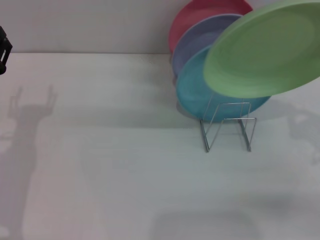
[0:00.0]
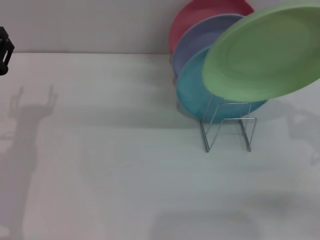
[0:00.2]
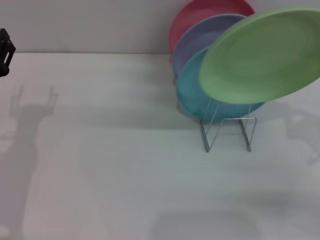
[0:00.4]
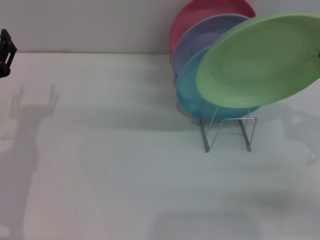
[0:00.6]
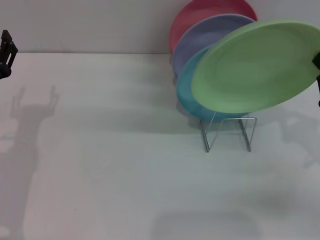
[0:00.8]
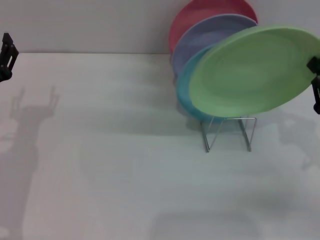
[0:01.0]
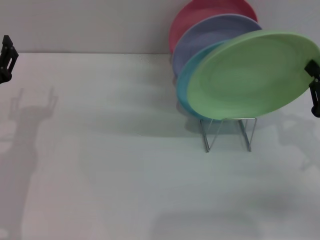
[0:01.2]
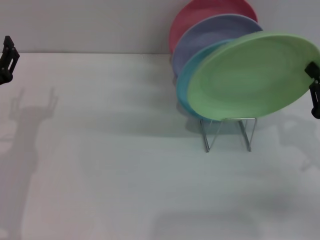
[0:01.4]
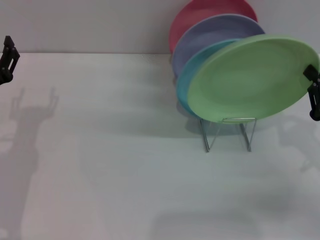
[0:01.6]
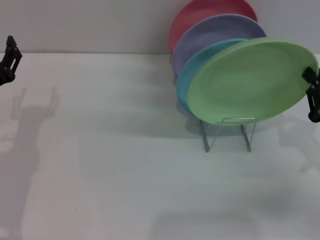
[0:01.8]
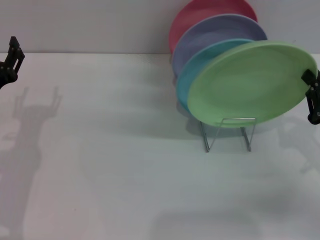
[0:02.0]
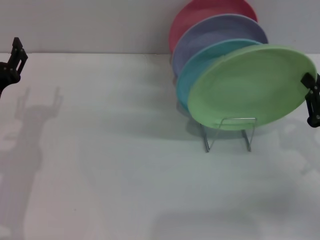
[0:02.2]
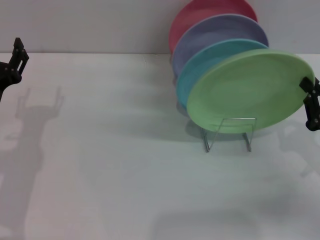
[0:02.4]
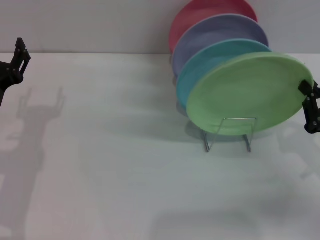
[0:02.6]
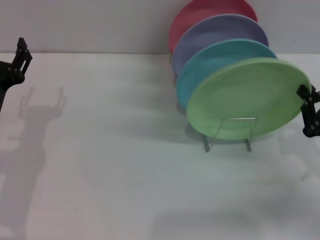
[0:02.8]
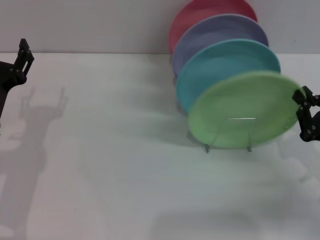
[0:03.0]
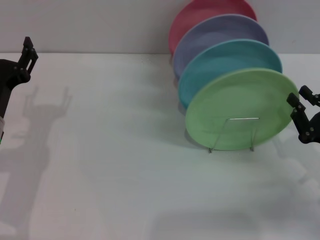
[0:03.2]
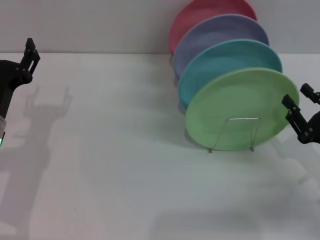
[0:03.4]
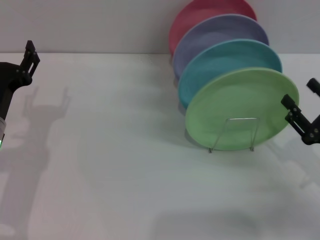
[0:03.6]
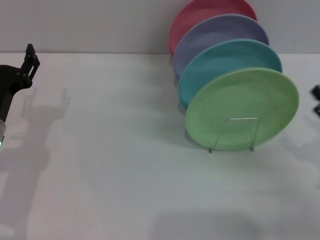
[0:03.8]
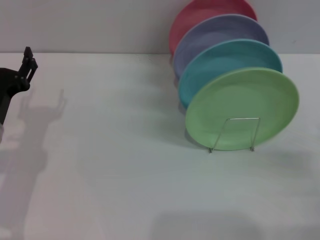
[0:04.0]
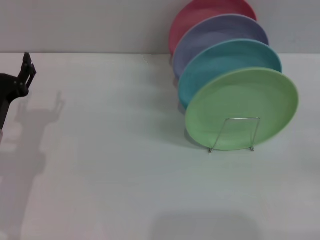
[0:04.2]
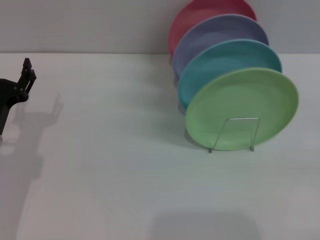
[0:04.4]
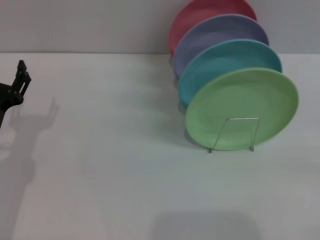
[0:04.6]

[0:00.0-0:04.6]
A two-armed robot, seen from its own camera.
Task of the whole recording: Grip the plate with one hand, pass it to the other, then set it on the shelf.
Step, 0.0 to 3.6 s: Place the plate on the shelf with the right gripper.
0.0 to 1.6 s: The grippers move only a little.
1.6 to 3.0 s: There are only small adjustments of the grippers.
3.0 to 4.6 s: The right gripper travels to the right and backward by about 10 cm, and opens its fingers.

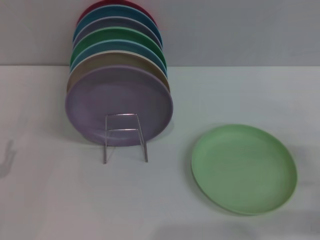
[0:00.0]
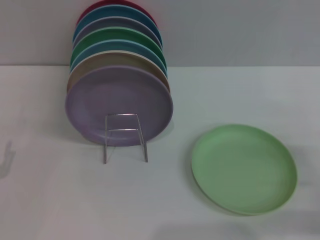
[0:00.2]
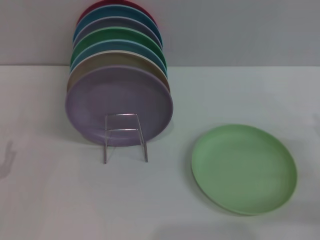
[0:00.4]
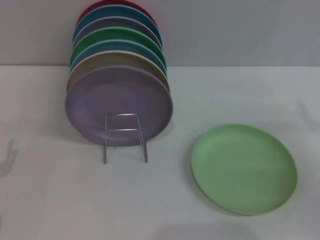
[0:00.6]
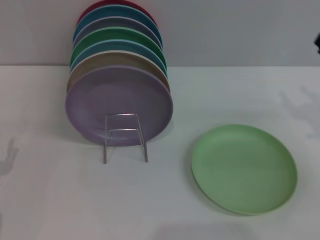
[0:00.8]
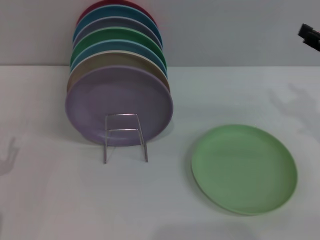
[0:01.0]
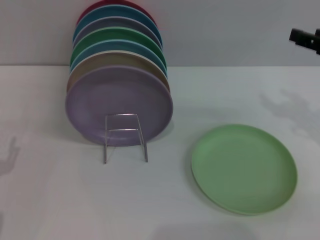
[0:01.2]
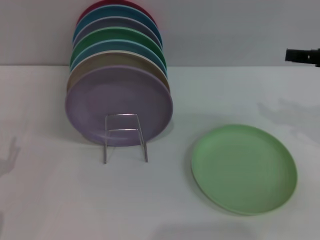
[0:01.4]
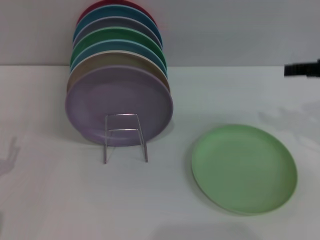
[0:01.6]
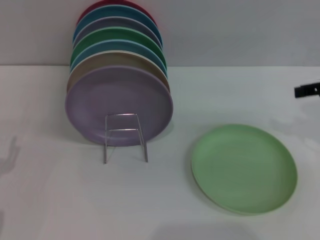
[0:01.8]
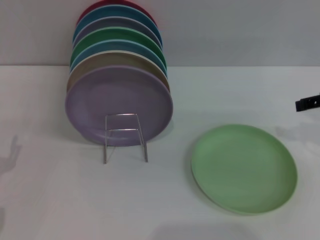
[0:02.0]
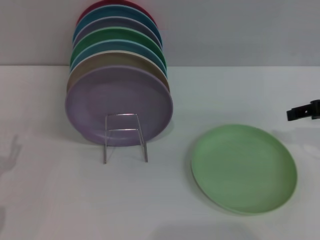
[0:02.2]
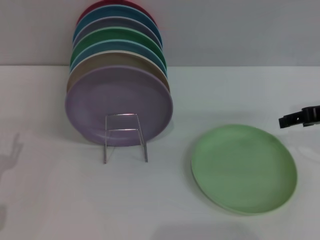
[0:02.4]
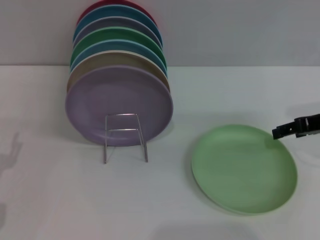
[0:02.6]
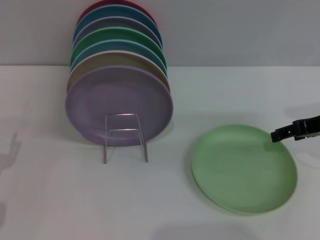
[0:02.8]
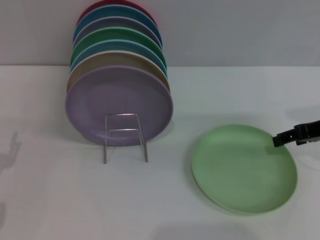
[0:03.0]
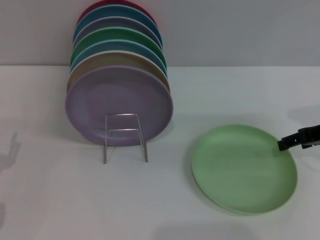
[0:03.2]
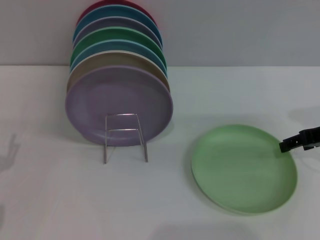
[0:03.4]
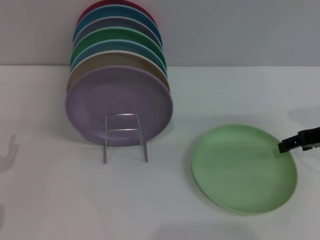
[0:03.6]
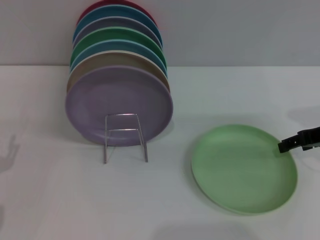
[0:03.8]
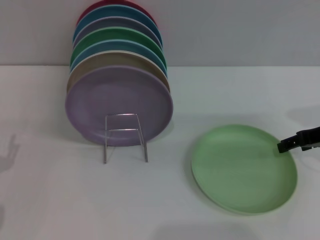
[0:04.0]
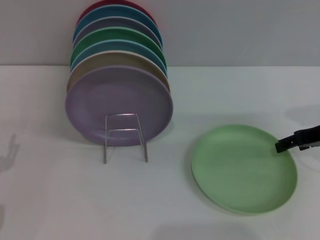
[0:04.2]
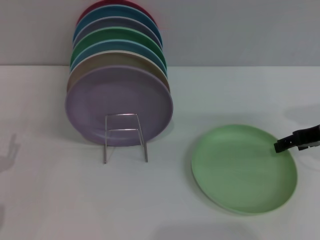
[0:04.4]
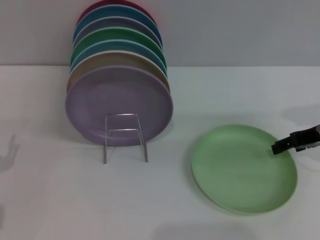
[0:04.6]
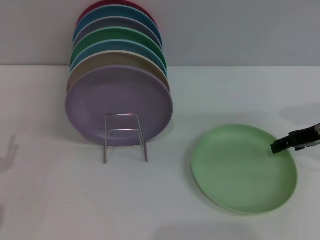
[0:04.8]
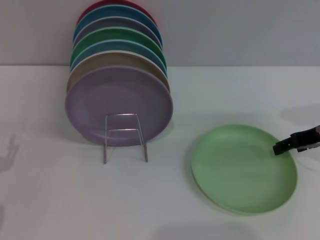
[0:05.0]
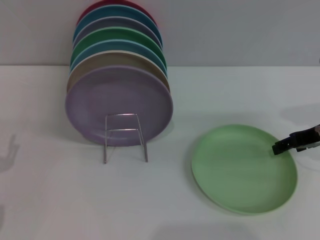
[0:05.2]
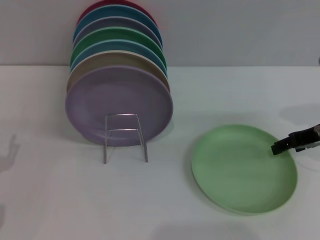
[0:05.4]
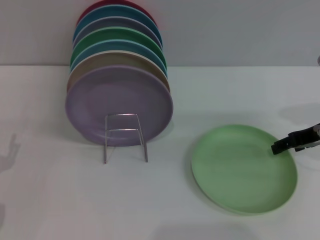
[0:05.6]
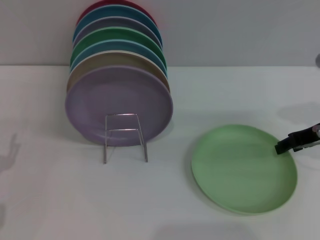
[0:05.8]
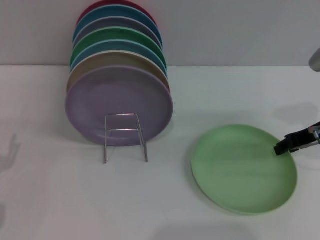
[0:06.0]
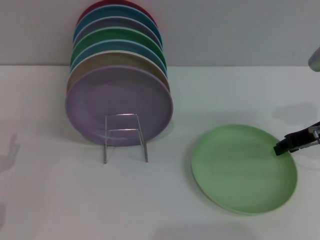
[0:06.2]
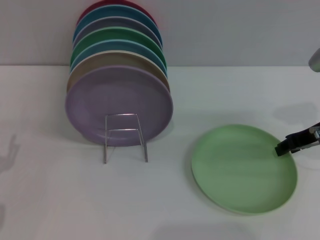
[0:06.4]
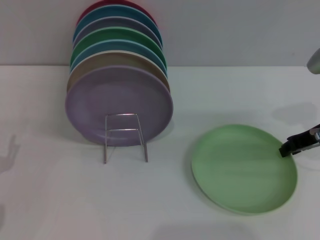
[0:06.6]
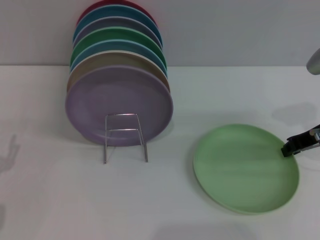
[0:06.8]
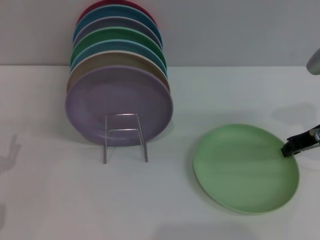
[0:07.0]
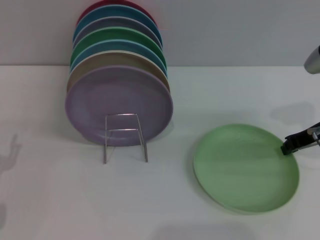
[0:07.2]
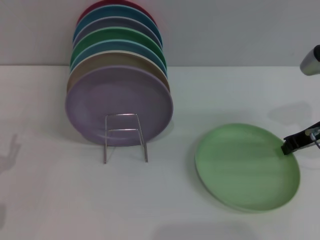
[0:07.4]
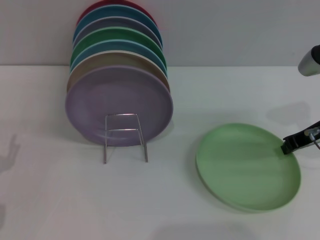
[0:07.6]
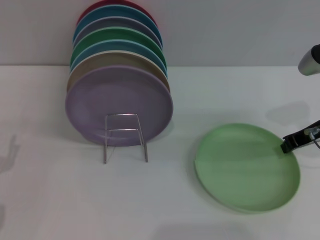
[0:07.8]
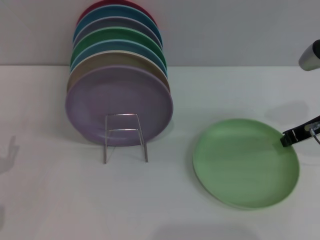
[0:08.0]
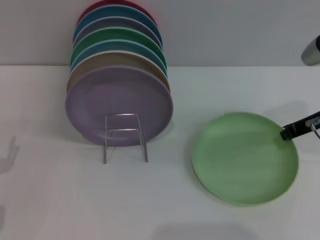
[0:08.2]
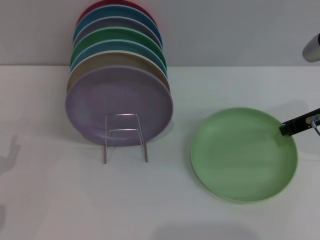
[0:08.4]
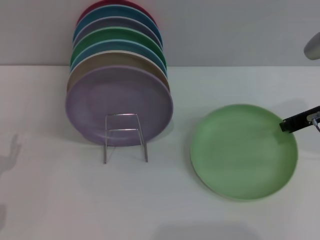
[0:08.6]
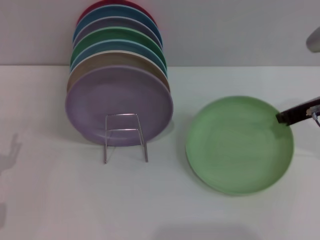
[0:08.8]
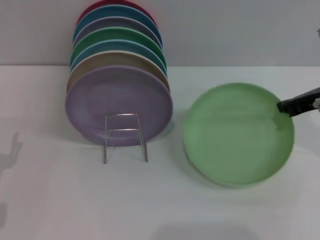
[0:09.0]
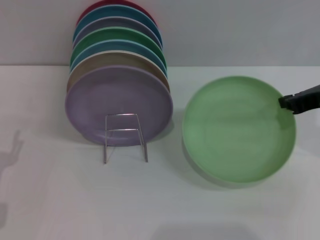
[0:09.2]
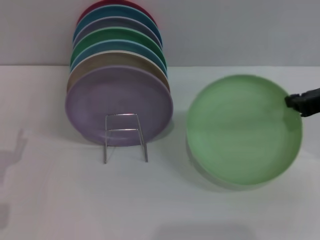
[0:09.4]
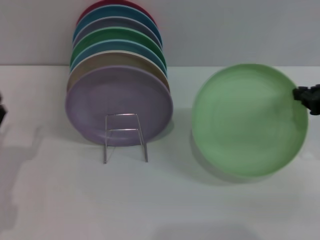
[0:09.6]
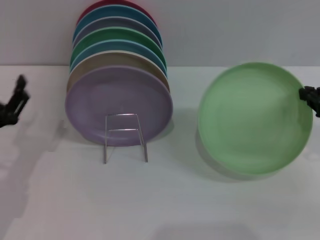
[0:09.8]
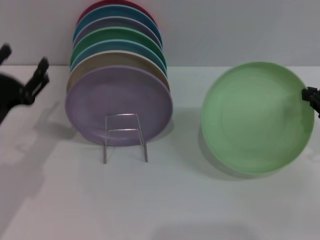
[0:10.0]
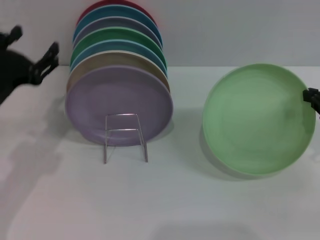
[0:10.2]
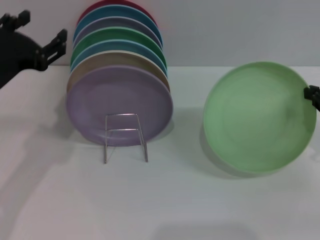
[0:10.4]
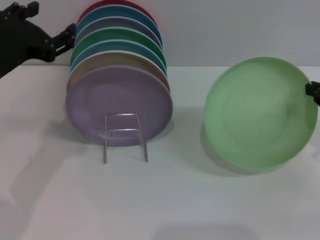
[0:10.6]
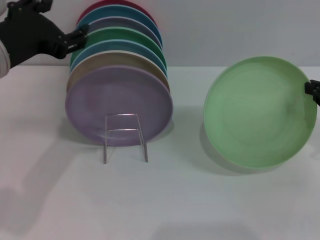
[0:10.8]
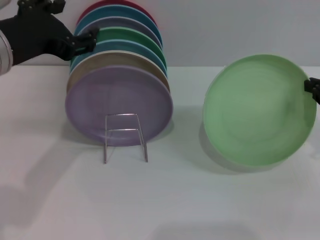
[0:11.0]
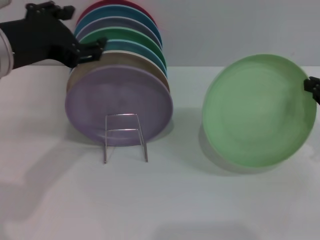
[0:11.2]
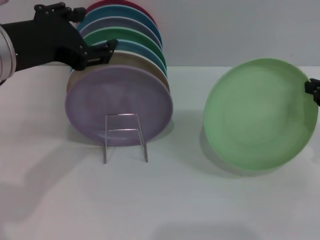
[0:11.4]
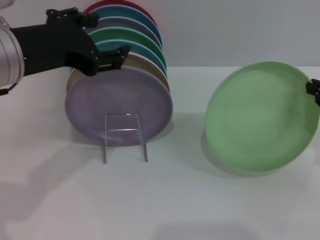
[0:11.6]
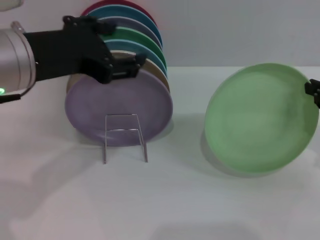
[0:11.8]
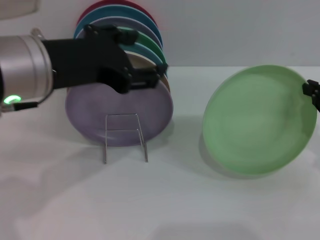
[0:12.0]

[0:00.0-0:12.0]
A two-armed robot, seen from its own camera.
Task of the whole recording: Grip the plate with one hand, pass it to the other, then set it on the shelf.
Step, 0.0 to 9.6 s: Pick up the plate with the right gripper.
0.0 to 1.6 s: The right gripper goes about 20 cm upward and forward.
1.6 to 3.0 s: The right gripper shifts approximately 10 cm downward.
6.0 to 7.6 s: The right gripper closes its fingers.
7.6 to 9.0 s: The right gripper shifts about 5 cm upward.
9.0 to 10.4 s: The left gripper heads upward, to the right and forward, covering about 20 cm. The right gripper heads to the right and backward, covering about 10 cm.
10.4 to 12.0 s: The left gripper is displaced upward and to the right by roughly 10 cm.

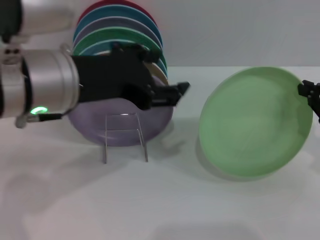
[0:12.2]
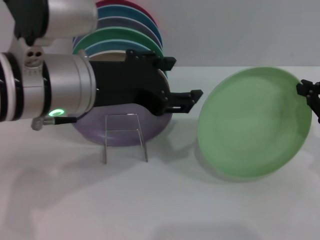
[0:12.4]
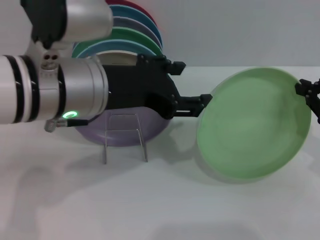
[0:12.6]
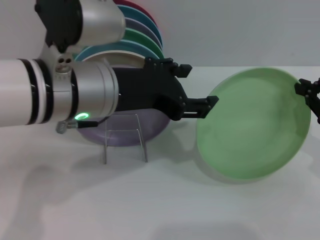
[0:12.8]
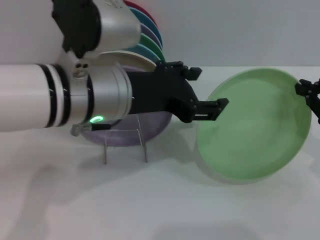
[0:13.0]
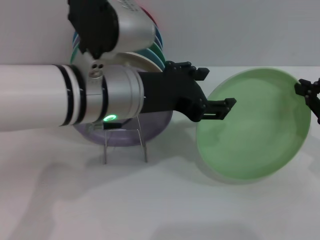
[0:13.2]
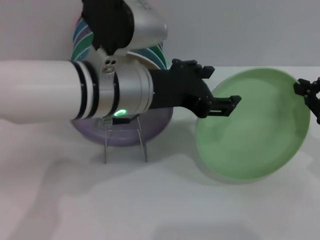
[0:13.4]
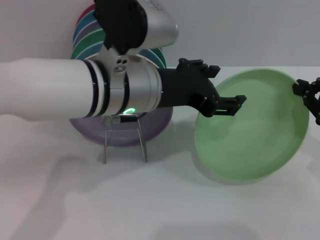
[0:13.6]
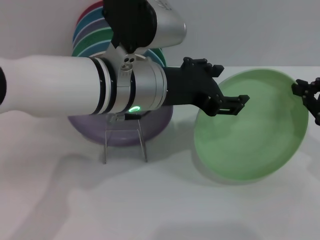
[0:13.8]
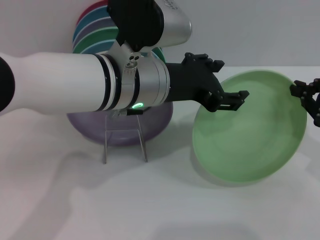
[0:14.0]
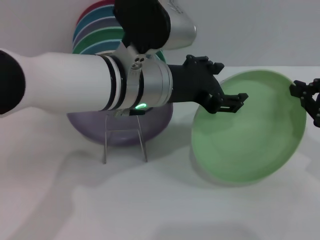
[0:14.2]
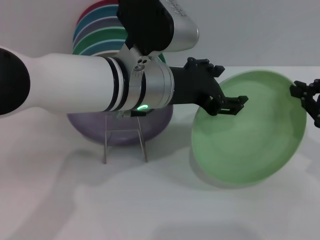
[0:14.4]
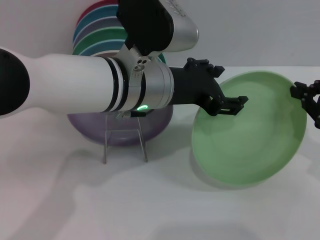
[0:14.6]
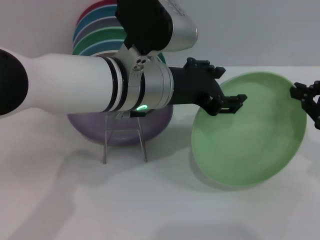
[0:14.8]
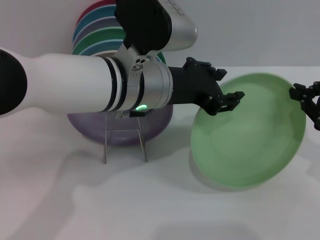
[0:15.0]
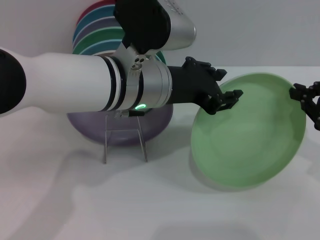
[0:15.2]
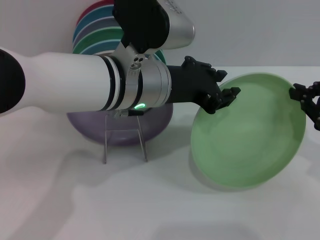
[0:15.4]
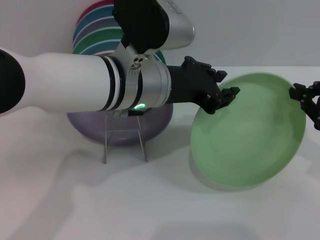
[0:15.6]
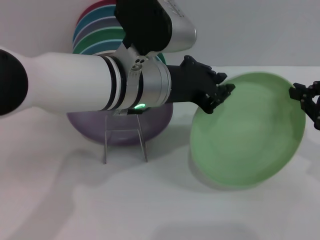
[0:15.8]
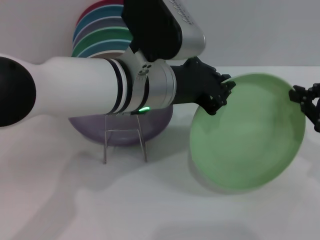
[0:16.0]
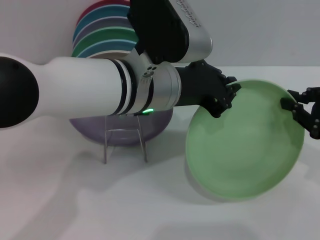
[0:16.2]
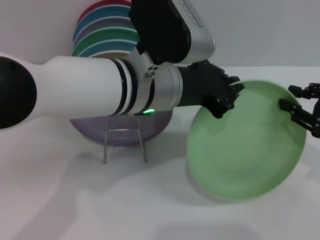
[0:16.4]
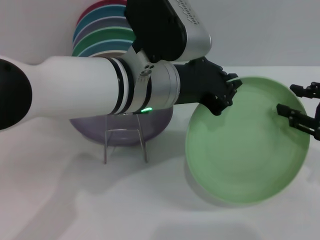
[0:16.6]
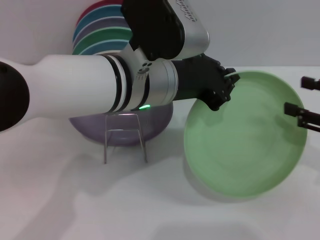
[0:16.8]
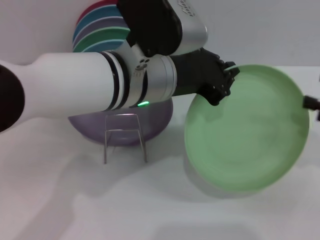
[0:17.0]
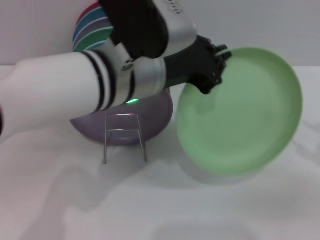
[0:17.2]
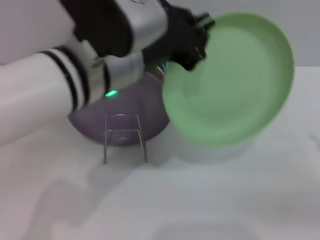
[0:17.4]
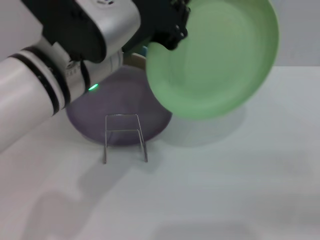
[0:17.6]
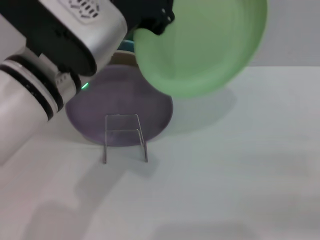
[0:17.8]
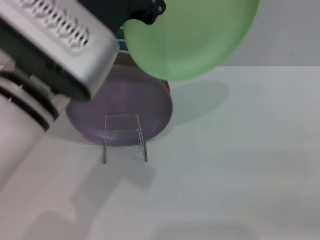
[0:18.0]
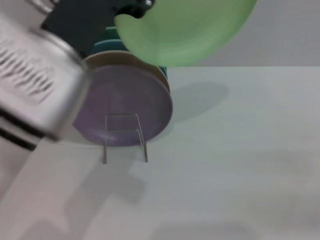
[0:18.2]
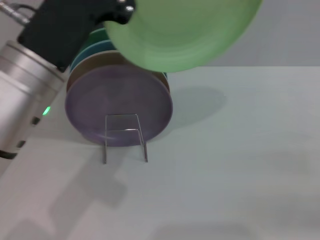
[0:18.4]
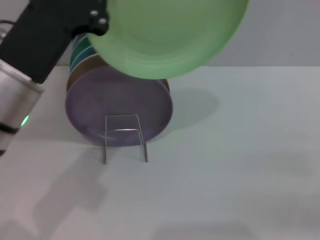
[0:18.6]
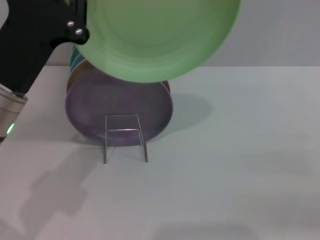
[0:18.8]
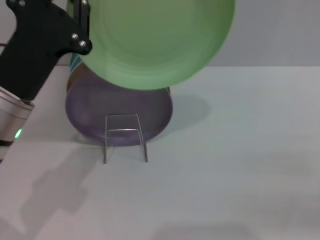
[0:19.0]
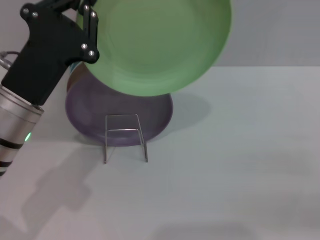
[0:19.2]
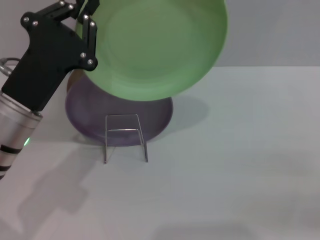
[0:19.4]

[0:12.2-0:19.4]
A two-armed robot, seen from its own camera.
Task of the whole recording: Grip the plate with one hand, pass it to the other, then set it on the shelf.
Step, 12.2 to 17.0 s: Pass the plate from the right gripper to the left gripper.
12.2 to 13.6 s: The left gripper moves to the right, about 10 cm.
13.6 to 15.0 s: The grippers make only small movements.
15.0 to 16.6 s: The left gripper closes. Meanwhile the right gripper opens its fingers.
16.6 to 18.0 s: The right gripper moves to the right and backward, about 15 cm, and opens up. The left gripper heads to the left and backward, covering approximately 10 cm.
18.0 to 19.4 s: The left gripper is displaced downward and to the left by roughly 15 cm.
